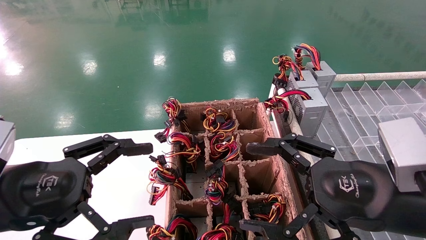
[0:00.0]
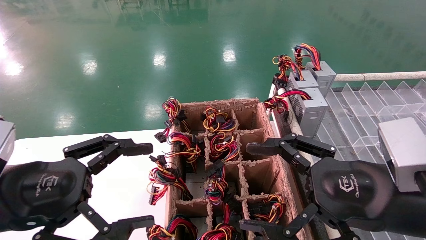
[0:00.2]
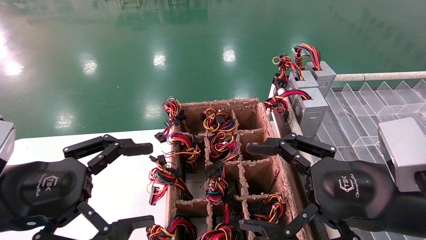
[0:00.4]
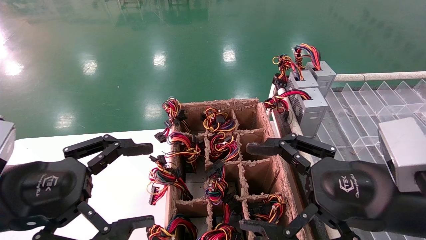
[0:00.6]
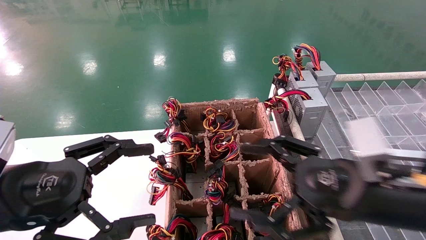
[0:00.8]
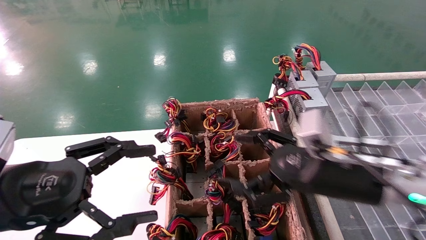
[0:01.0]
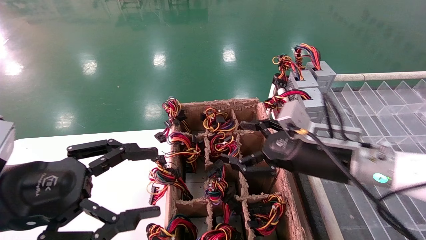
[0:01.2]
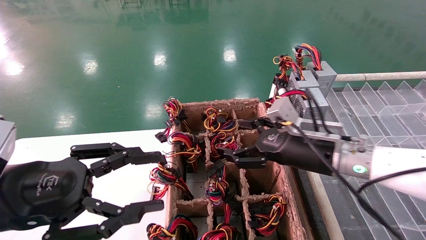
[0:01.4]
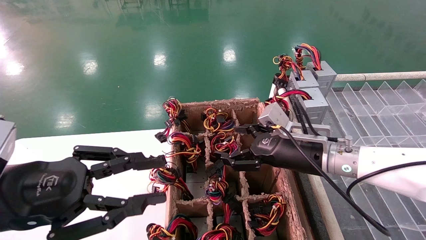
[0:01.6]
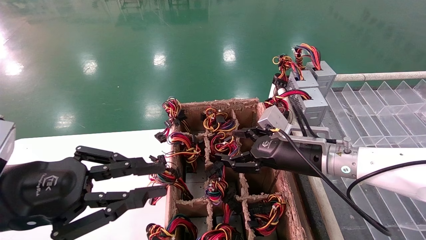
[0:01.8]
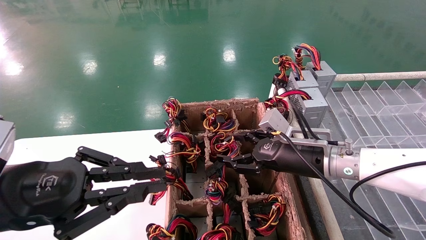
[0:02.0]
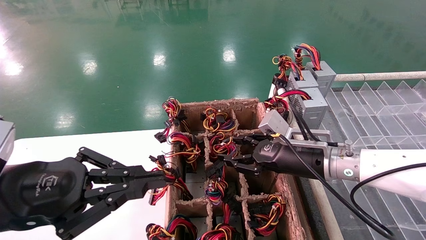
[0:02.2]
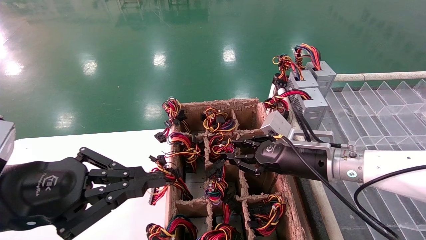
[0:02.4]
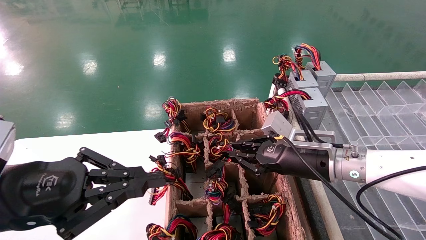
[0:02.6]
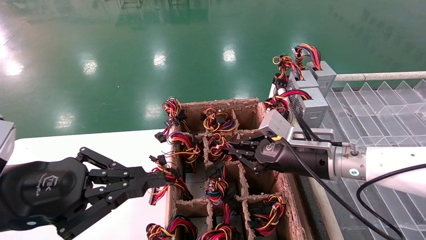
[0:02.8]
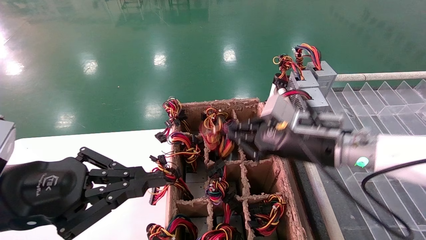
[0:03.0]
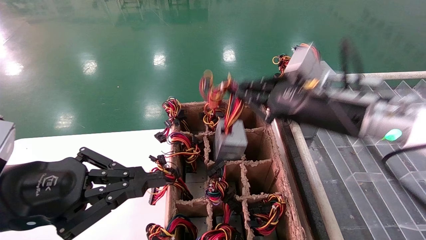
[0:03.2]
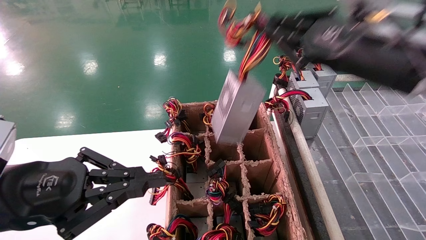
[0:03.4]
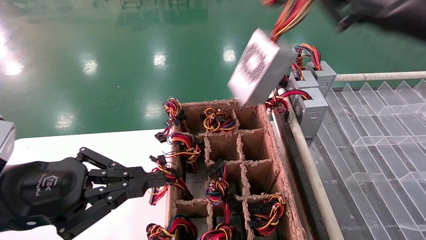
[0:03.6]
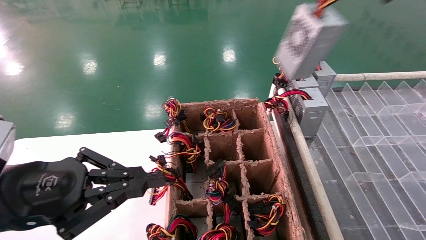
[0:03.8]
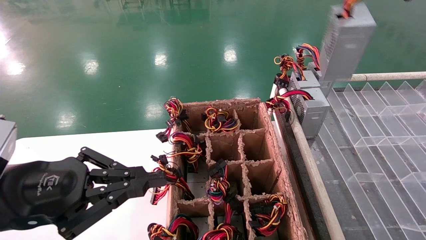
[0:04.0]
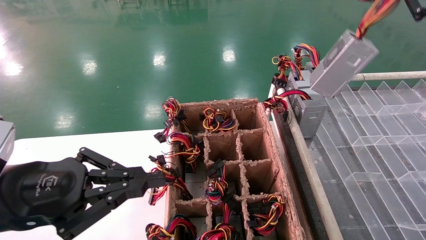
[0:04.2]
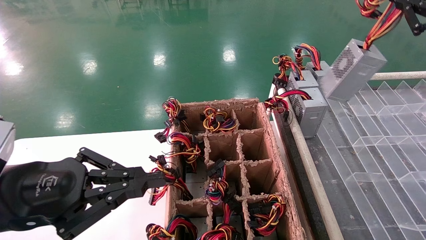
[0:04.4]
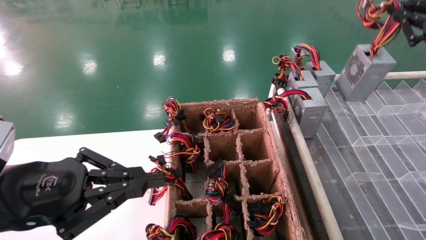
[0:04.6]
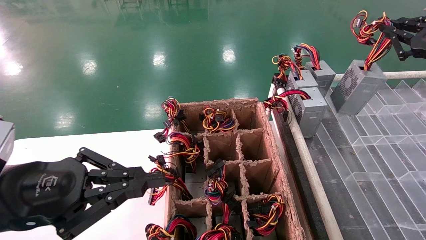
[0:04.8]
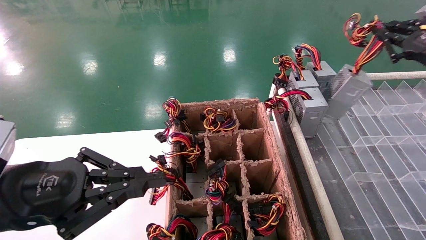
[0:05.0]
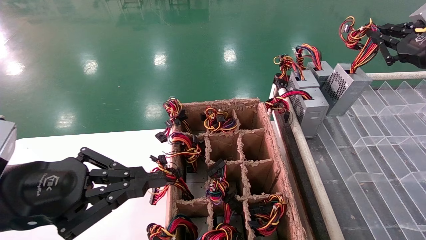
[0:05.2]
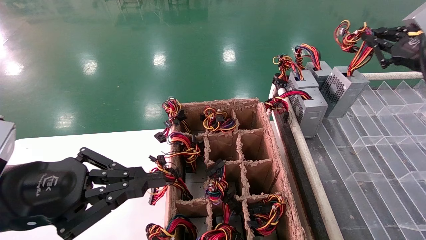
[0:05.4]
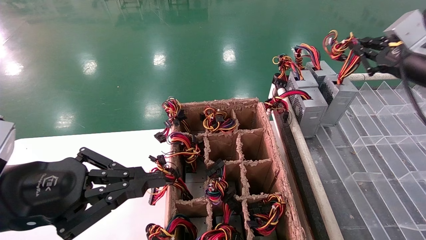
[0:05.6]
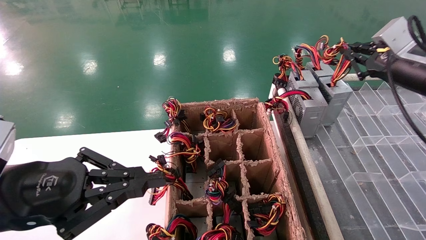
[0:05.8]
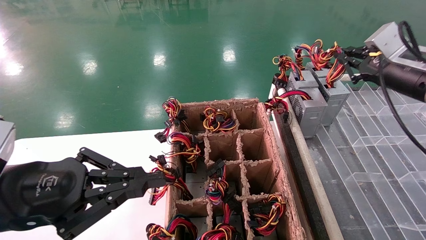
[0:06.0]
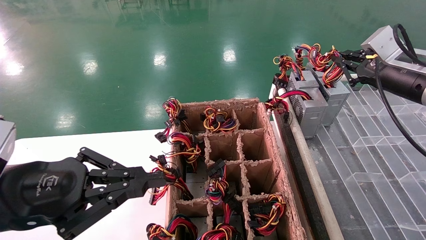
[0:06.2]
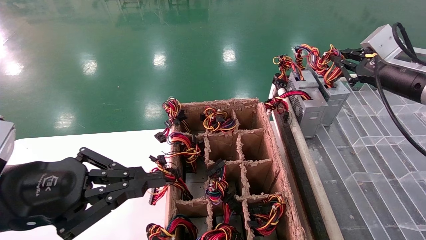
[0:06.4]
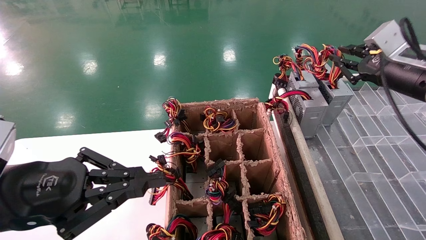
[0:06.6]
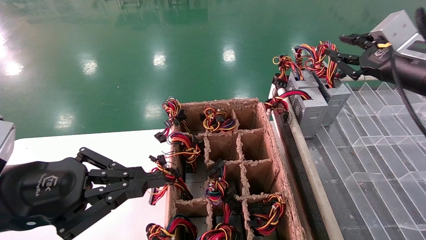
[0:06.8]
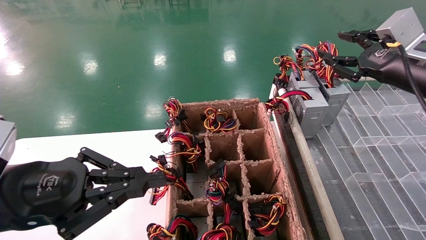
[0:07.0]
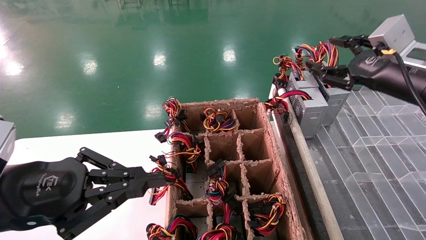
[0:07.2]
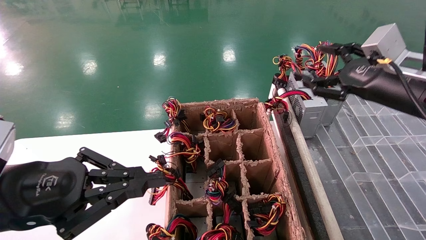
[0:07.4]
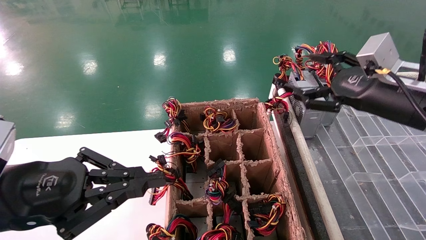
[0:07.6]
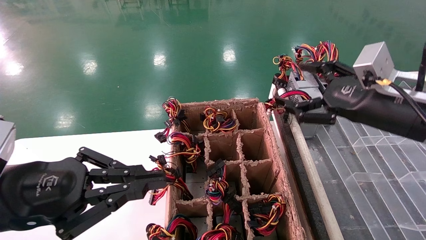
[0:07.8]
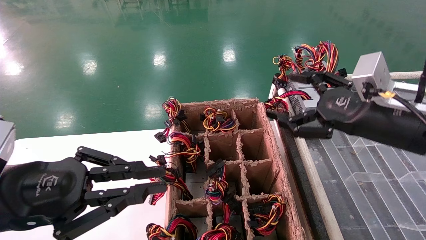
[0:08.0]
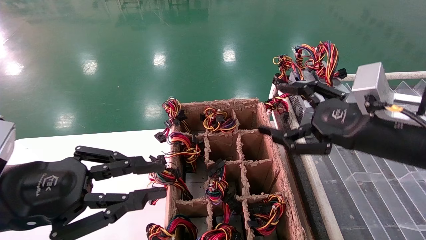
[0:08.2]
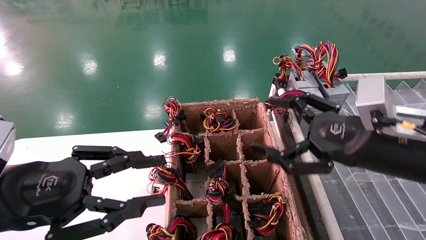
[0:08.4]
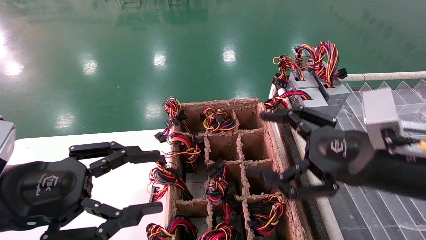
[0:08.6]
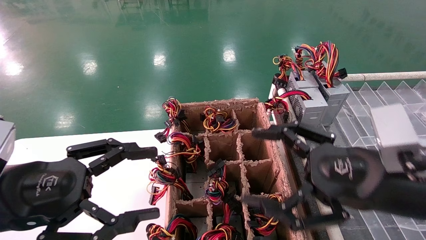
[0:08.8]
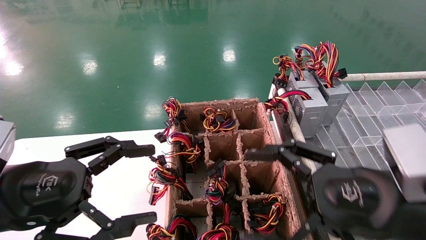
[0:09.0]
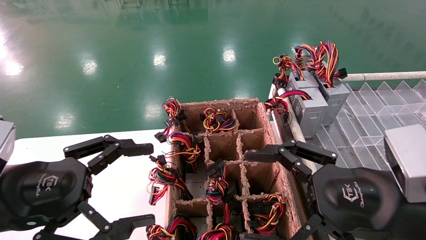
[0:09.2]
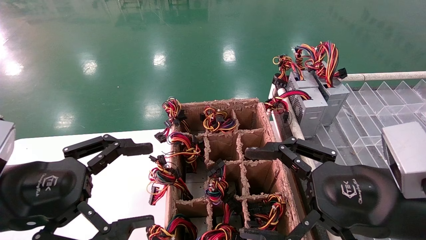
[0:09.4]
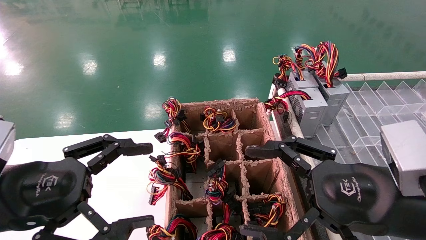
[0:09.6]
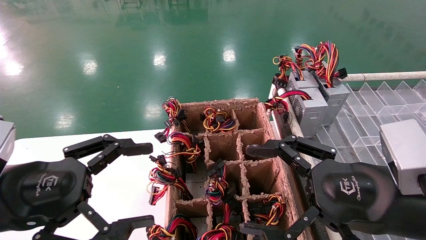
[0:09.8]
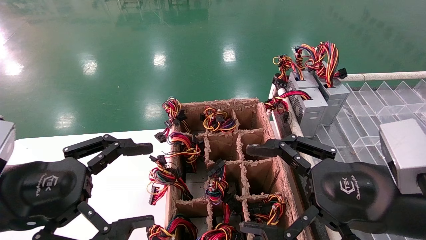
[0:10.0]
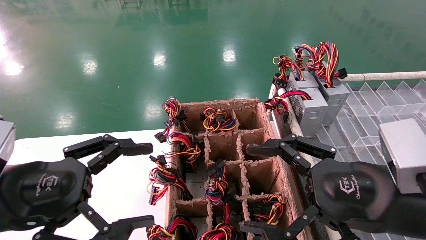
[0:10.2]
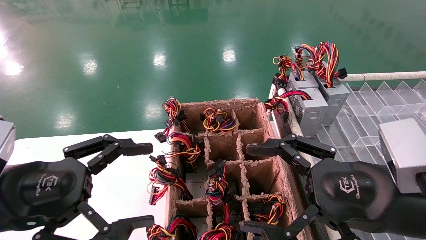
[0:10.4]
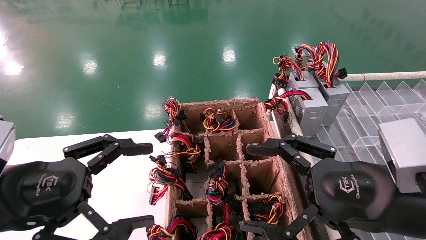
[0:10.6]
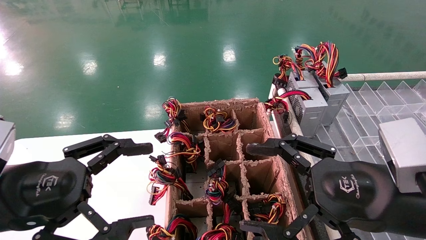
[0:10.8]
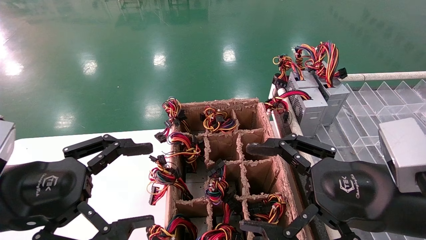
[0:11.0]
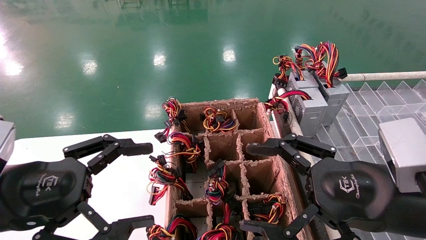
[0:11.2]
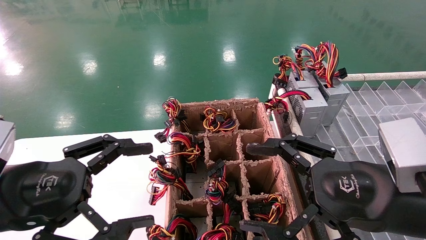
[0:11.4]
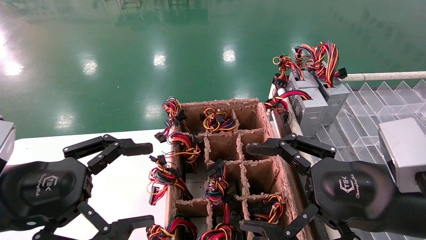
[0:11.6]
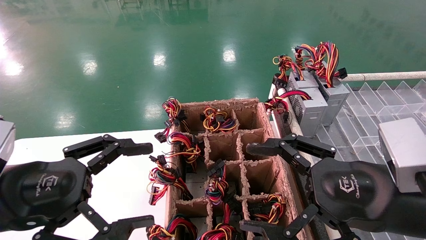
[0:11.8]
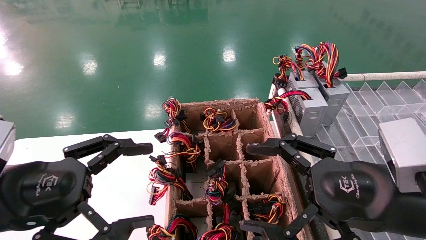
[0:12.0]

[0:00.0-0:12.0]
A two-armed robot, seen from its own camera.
Step, 0:01.0 to 0:02.8: Grab the main unit power supply from the containment box.
Step, 0:03.0 to 0:06.8: Place the main unit power supply in the designated area.
0:00.0 to 0:01.6: The left gripper closes up. The right gripper heads forward, covering about 15 cm.
0:01.6 to 0:03.0: The left gripper closes. Meanwhile the right gripper moves upward, about 5 cm, and closes its fingers.
0:03.0 to 0:04.4: The right gripper is displaced to the right and upward by some 25 cm.
0:04.4 to 0:06.0: The right gripper heads forward and downward, covering about 10 cm.
0:06.0 to 0:07.6: The right gripper goes approximately 10 cm to the left and backward, and opens.
0:07.6 to 0:09.0: The left gripper opens its fingers. The right gripper moves backward, to the left and downward, roughly 15 cm.
0:09.0 to 0:12.0: Both grippers stay put.

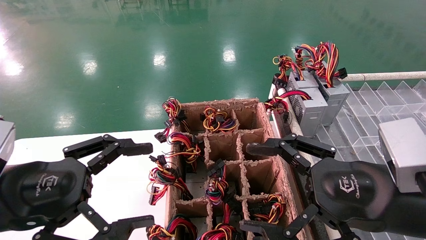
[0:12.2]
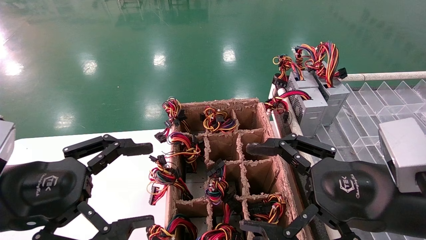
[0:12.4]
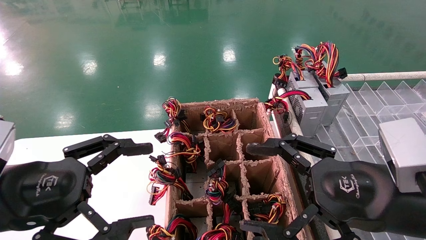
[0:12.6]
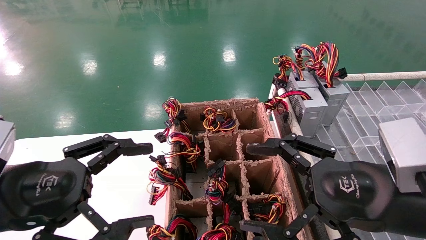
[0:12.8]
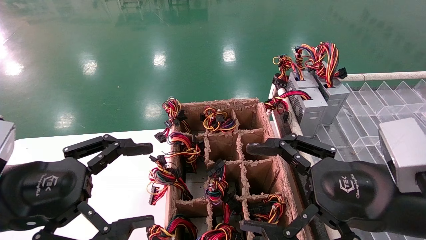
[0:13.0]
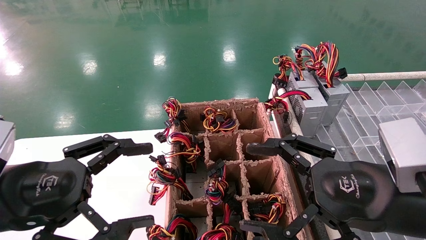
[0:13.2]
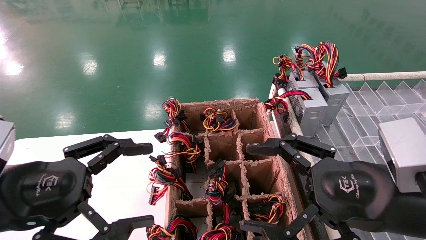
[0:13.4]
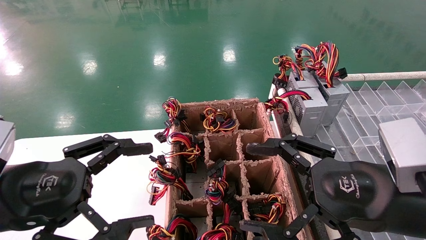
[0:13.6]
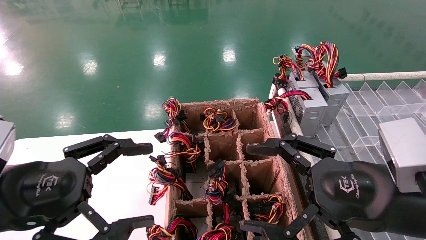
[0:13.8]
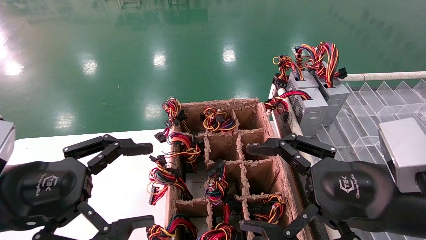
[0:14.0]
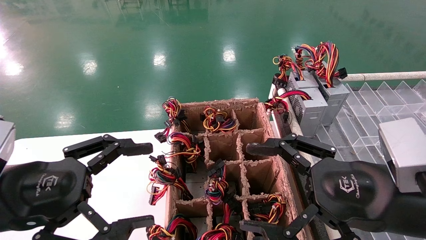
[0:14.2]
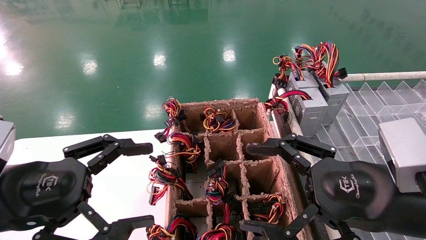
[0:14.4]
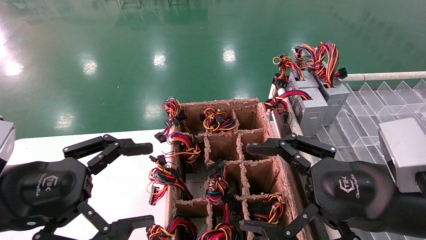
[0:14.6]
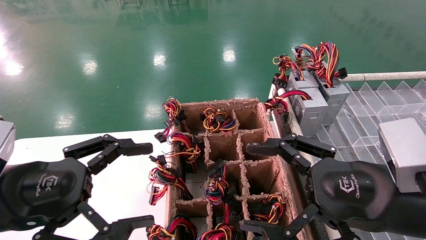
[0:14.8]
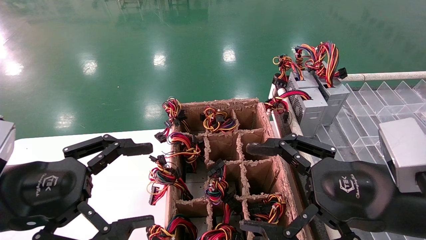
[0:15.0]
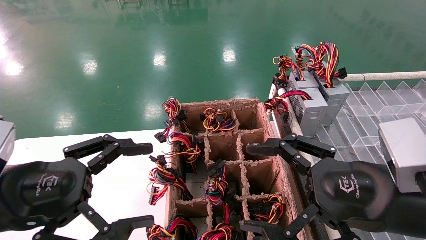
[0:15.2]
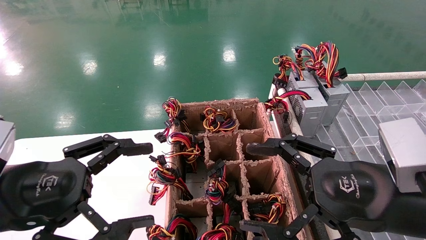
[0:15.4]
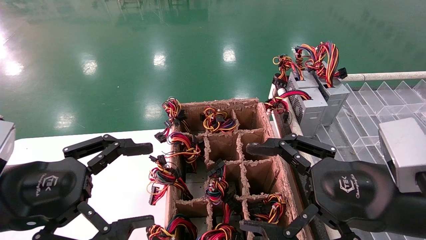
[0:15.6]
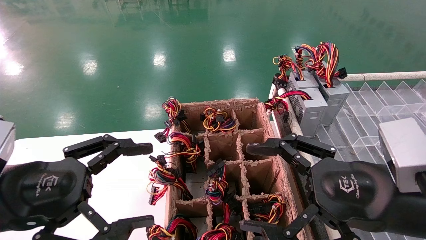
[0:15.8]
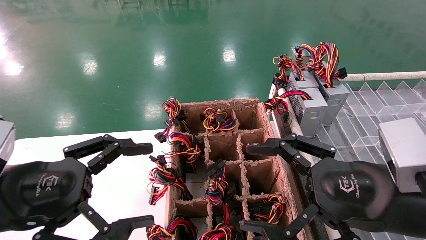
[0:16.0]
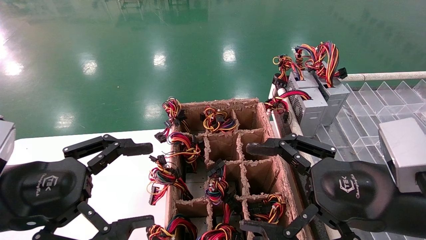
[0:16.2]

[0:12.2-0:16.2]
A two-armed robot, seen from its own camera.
0:12.2 to 0:16.2: Both grippers stay put.
